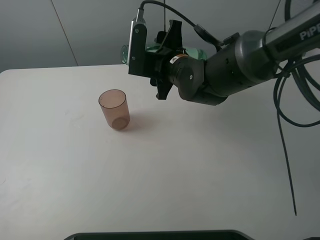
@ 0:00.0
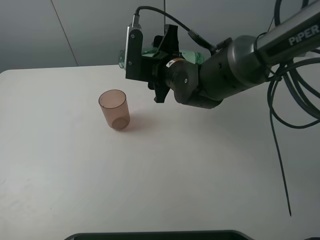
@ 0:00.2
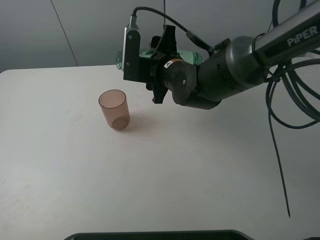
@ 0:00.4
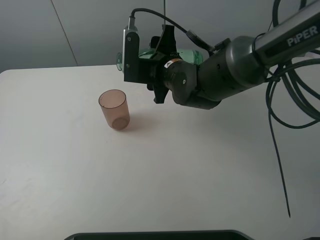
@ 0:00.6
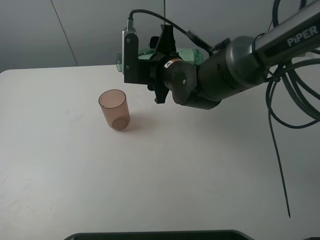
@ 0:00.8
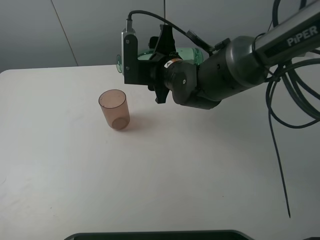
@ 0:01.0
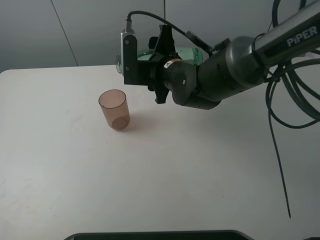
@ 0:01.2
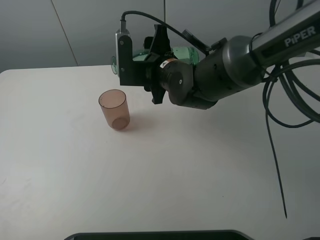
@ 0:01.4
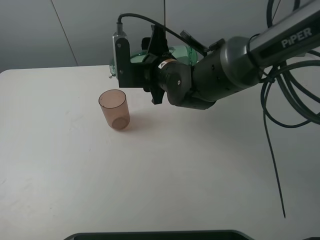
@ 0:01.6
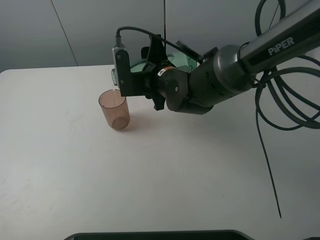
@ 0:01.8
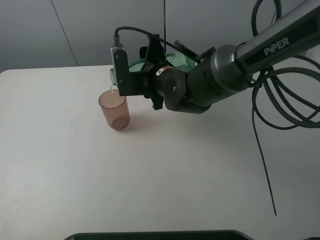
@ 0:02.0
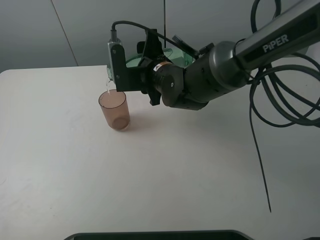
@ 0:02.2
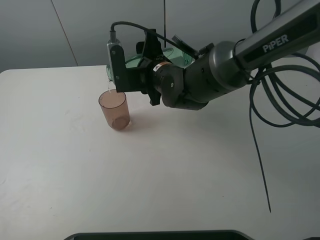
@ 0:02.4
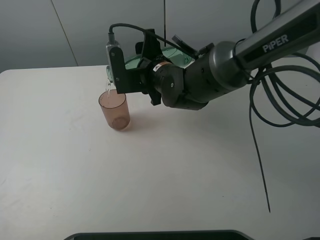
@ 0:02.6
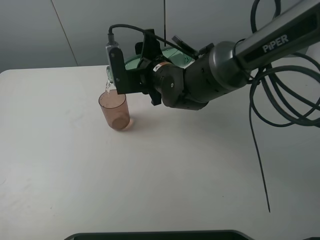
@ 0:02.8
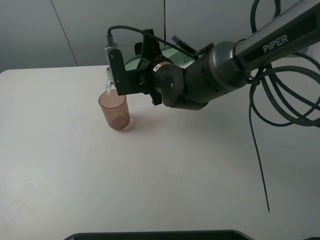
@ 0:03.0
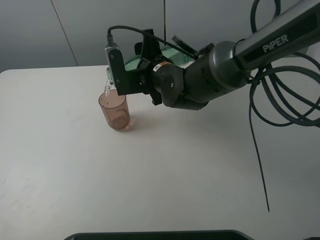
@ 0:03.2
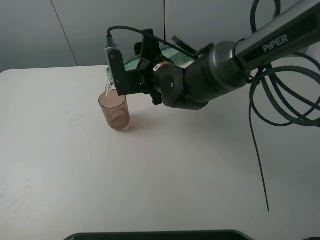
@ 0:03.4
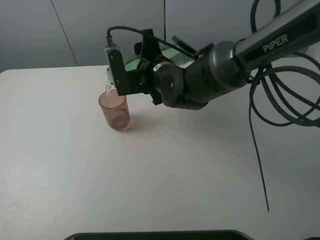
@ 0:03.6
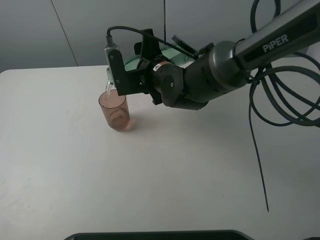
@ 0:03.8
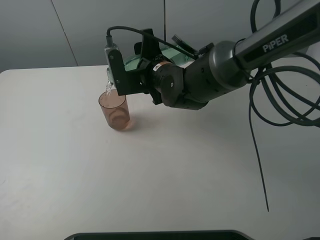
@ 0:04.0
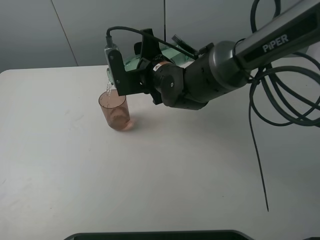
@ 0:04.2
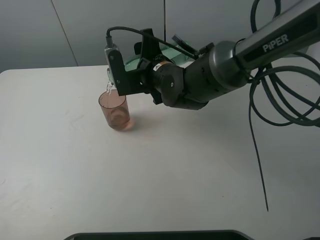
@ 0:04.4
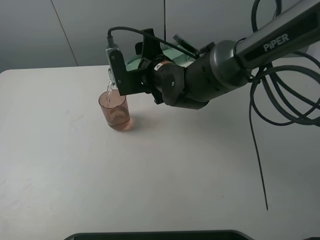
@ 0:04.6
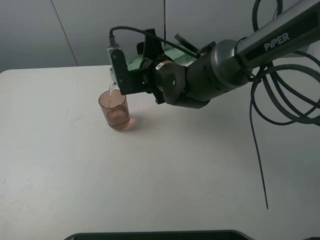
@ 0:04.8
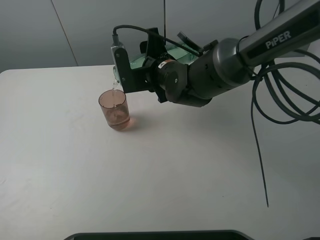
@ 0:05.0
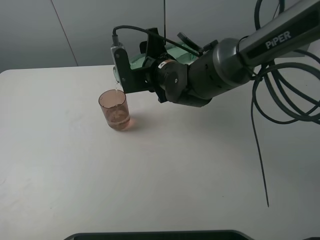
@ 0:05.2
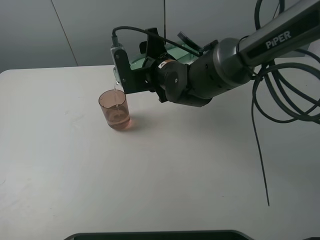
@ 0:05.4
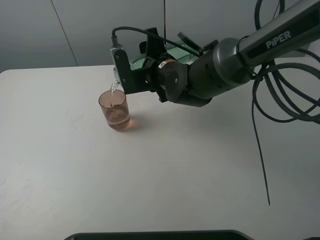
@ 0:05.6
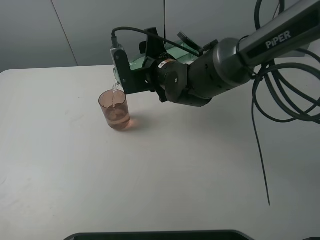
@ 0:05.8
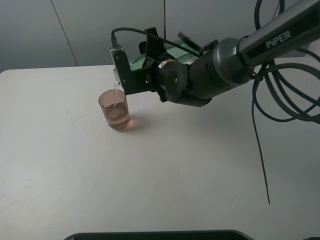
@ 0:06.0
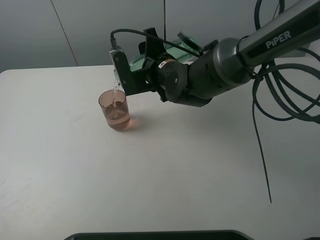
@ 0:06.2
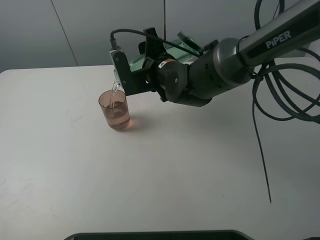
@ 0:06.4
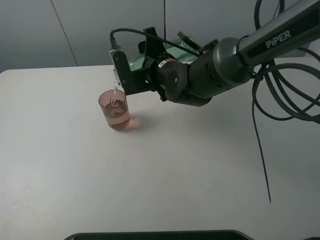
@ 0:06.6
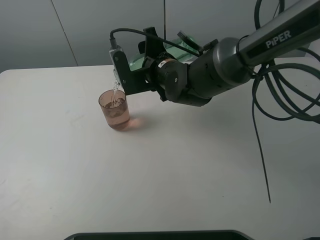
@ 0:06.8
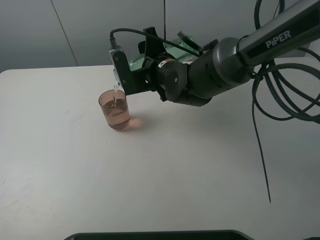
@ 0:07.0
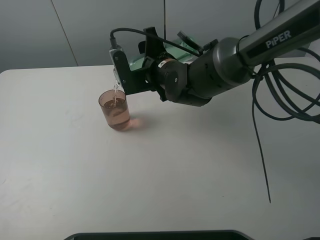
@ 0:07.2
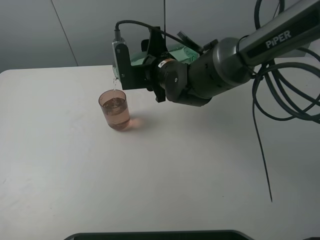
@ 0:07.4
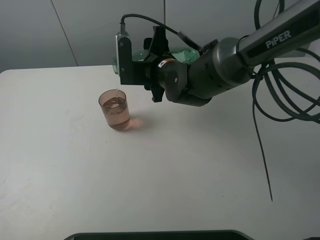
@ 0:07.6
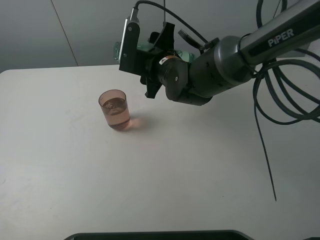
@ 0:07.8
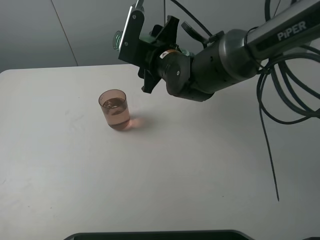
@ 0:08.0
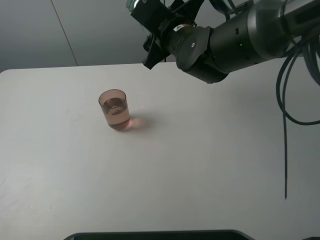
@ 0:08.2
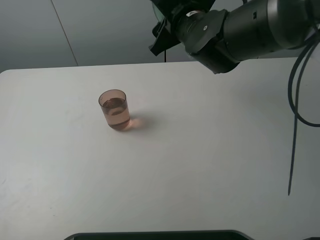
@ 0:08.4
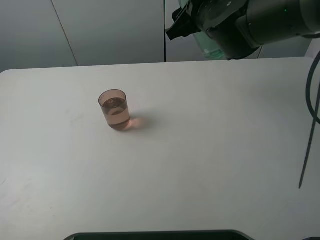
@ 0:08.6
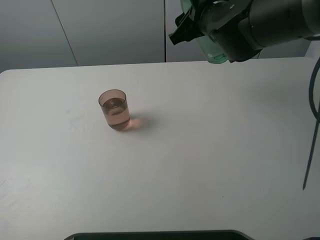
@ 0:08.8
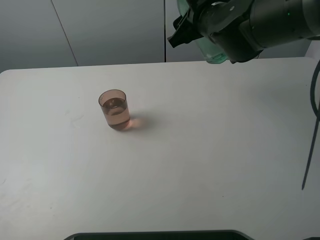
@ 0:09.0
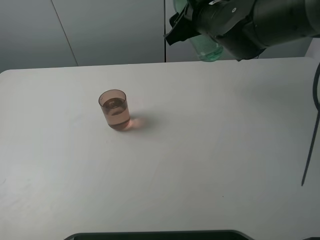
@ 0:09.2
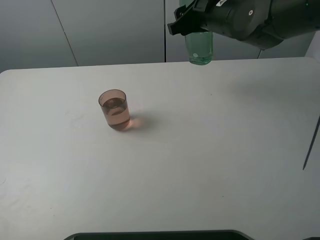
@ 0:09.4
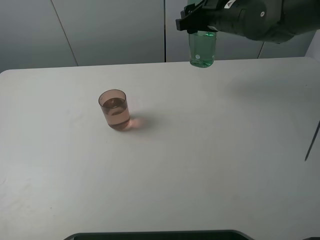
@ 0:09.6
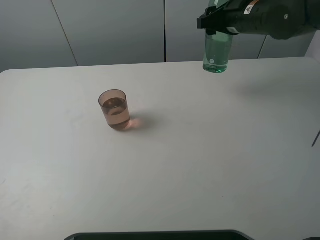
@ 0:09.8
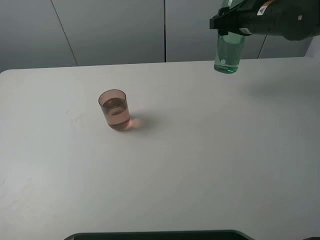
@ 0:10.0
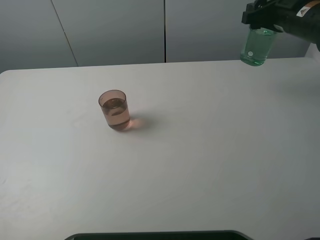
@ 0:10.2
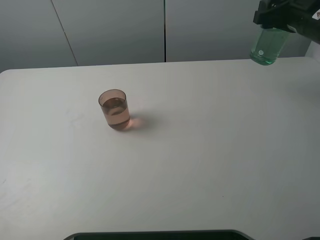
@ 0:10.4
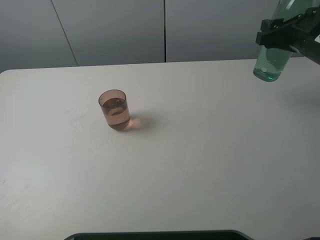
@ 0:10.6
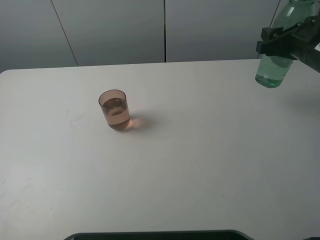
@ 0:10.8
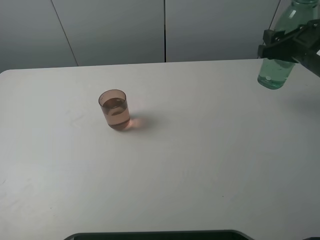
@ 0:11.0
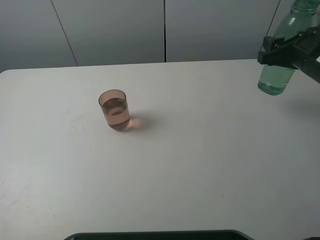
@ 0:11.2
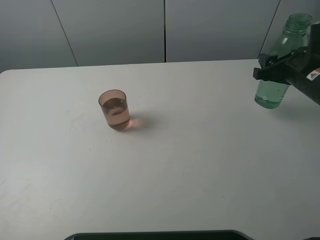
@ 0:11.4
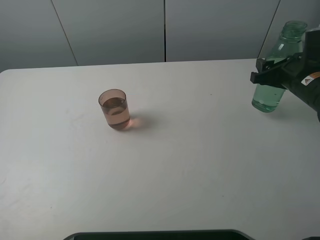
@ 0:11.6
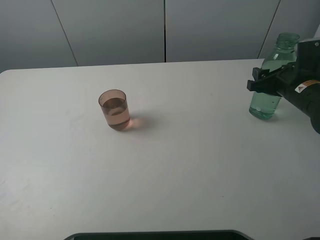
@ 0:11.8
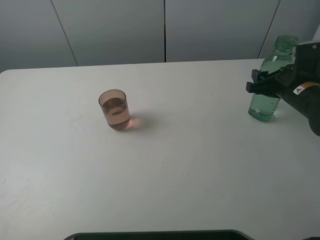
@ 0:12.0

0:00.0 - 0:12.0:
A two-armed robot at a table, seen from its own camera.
Task of the whole recording: pick up the bottle filled with water and pour it into the pink cup.
Step, 0:00.0 - 0:07.8: Pour water from green bottle to pink cup with the right gripper.
0:00.0 - 0:03.0: There are only small adjustments of the grippers.
0:03.0 - 0:04.4: The two grippers keep their place.
0:04.4 - 0:06.0: The two grippers keep their place.
0:06.0 - 0:07.6: There are only small adjustments of the grippers.
0:07.6 - 0:09.0: The right gripper moves upward and to the right, roughly 10 cm.
0:09.0 - 0:10.4: The right gripper shifts approximately 20 cm to the right.
0:10.4 - 0:12.0: The right gripper shifts about 10 cm downward.

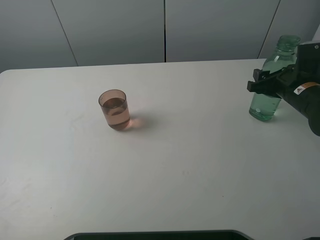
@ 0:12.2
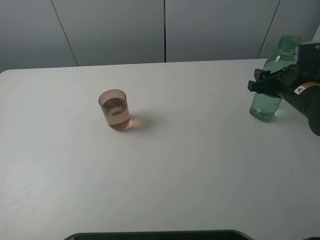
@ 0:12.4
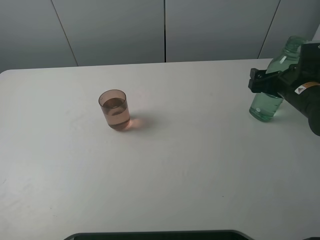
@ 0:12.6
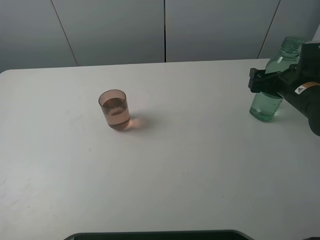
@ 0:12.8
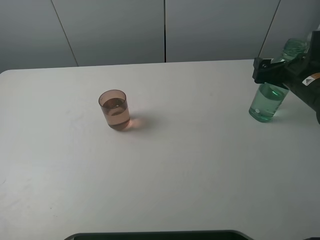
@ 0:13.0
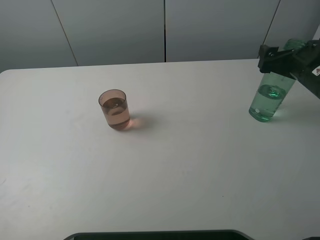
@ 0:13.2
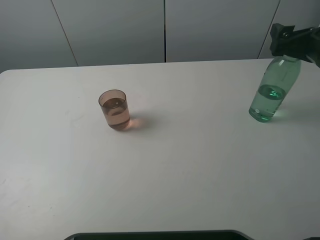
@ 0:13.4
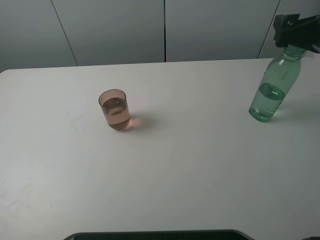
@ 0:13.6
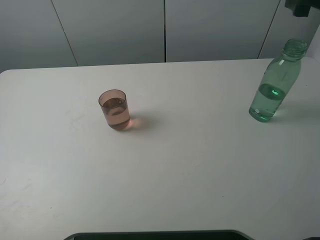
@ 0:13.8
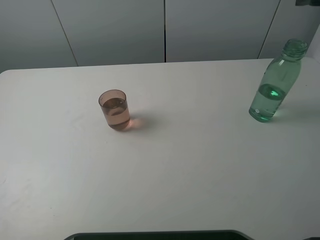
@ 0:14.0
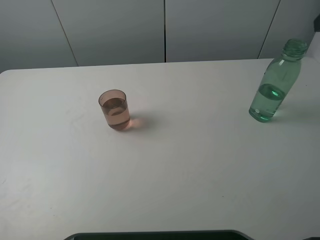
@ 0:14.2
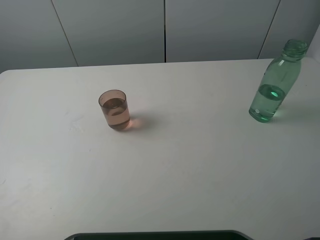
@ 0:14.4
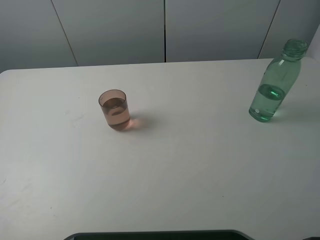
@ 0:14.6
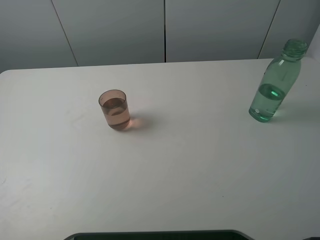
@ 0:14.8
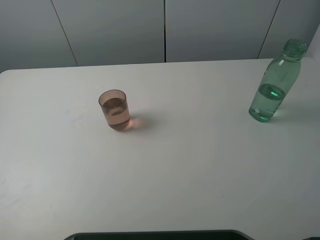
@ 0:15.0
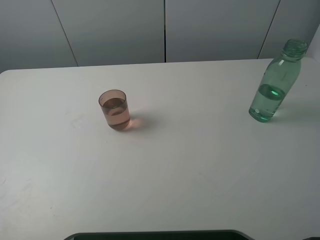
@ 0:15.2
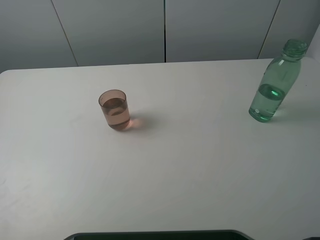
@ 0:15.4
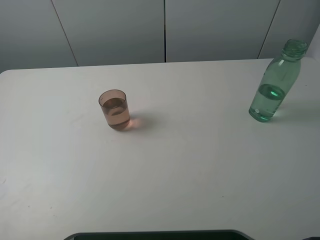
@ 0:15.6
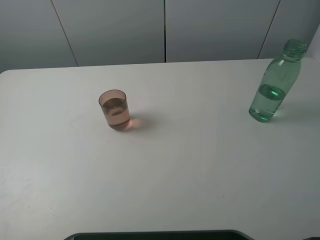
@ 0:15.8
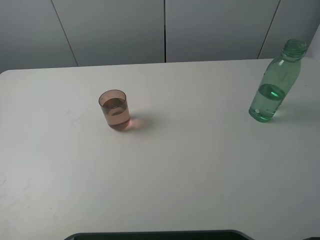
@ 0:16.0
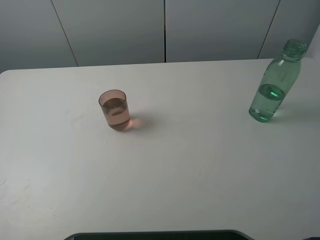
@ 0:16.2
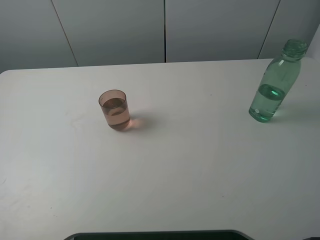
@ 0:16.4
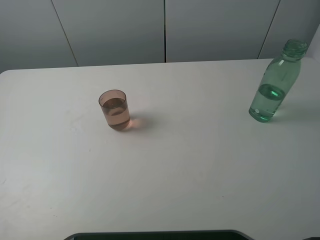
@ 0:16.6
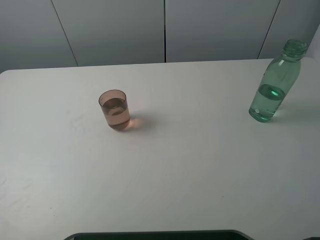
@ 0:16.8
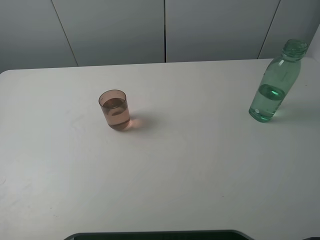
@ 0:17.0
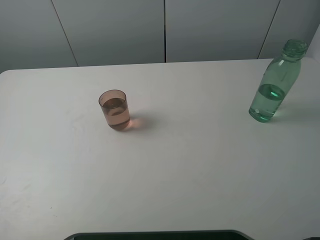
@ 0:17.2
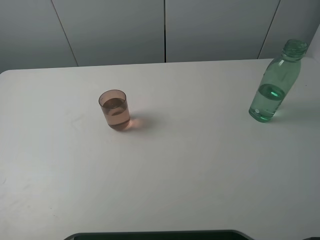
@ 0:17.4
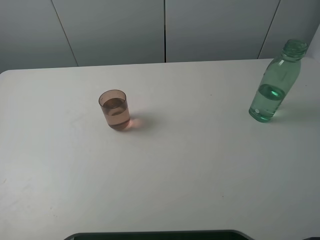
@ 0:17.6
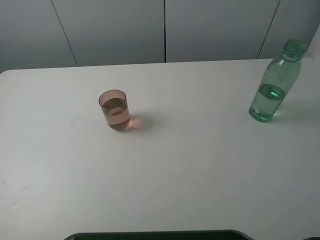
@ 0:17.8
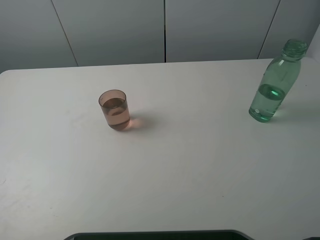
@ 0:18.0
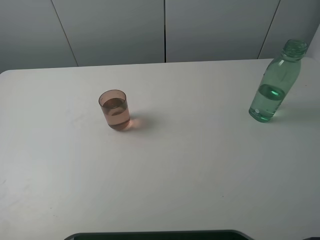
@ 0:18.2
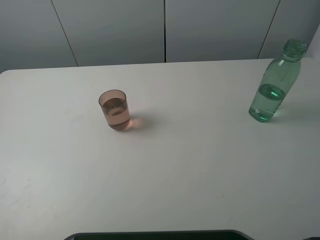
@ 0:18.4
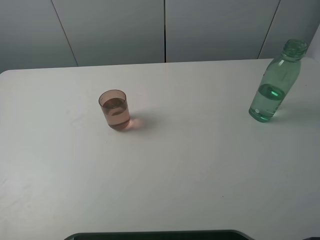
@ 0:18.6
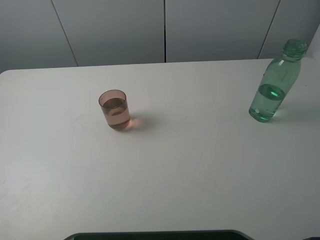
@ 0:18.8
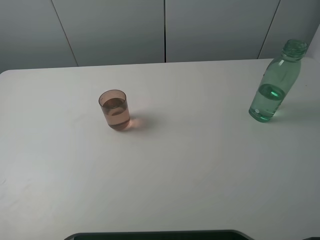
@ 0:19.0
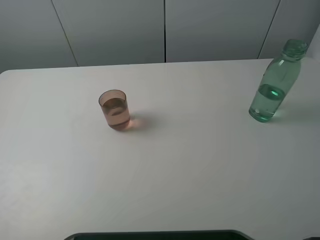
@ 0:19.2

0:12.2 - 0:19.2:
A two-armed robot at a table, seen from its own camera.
Task of the whole recording: pick up the bottle filled with water and pour it into the pink cup.
0:12.2 - 0:13.6: The right gripper goes roughly 10 cm upward, and opens up.
0:13.6 - 0:15.0: The right gripper is displaced backward by about 20 cm.
0:16.4 - 0:19.2: The two grippers keep their place.
